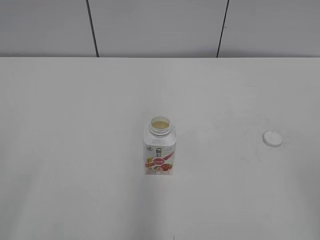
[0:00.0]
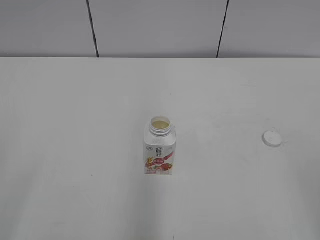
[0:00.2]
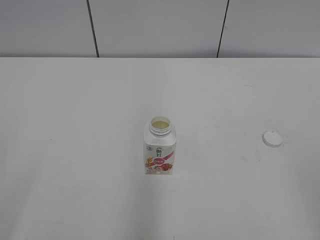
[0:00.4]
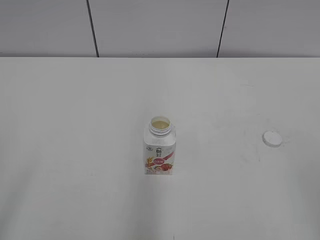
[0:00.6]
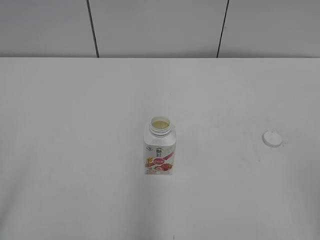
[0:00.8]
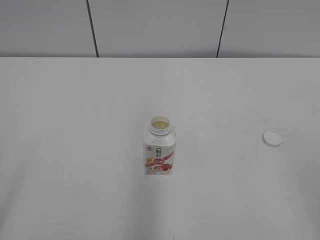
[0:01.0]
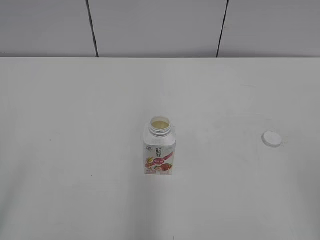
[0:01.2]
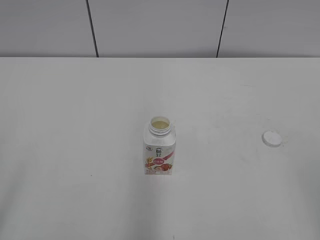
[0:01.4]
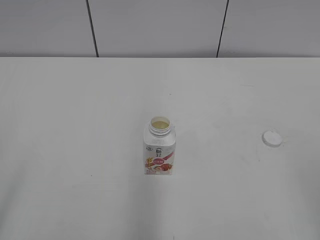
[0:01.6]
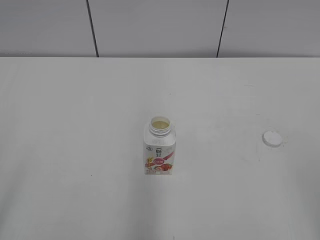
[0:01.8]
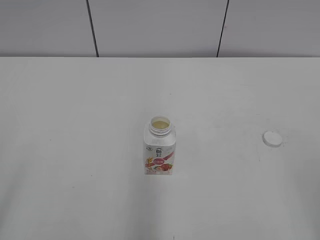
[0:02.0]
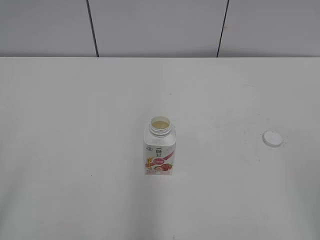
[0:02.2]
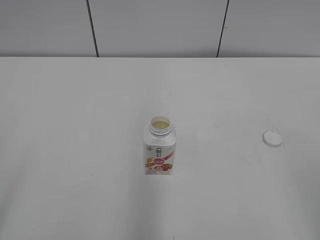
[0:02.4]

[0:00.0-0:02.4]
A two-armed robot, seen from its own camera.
0:01.2 to 0:02.4: Neither gripper changes place.

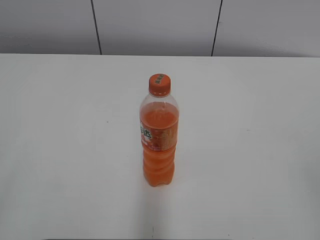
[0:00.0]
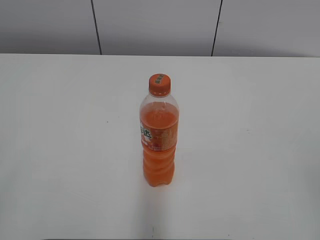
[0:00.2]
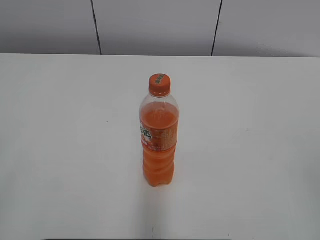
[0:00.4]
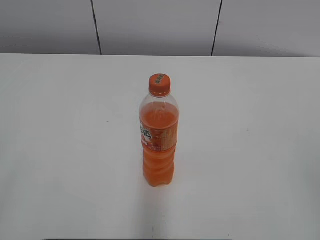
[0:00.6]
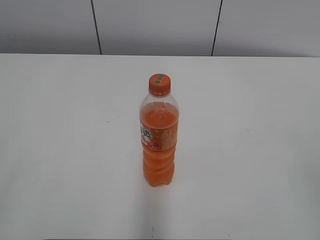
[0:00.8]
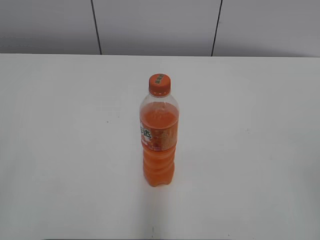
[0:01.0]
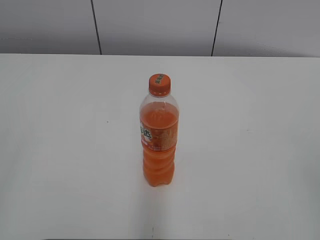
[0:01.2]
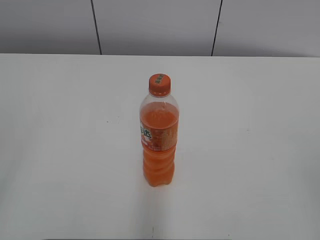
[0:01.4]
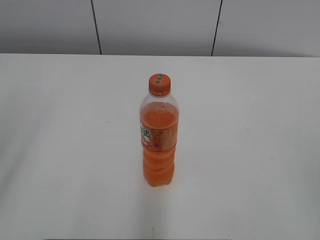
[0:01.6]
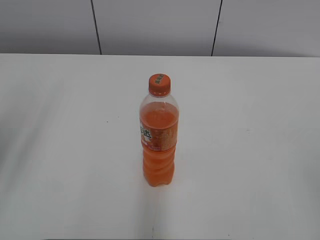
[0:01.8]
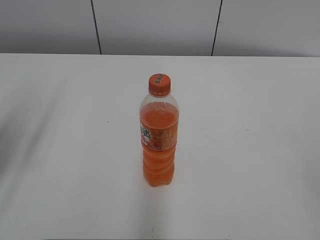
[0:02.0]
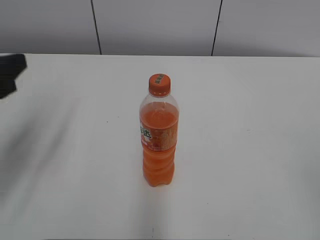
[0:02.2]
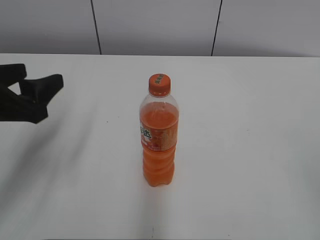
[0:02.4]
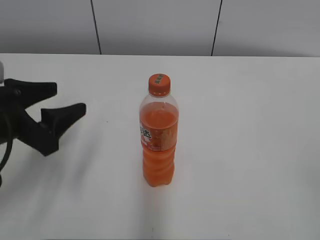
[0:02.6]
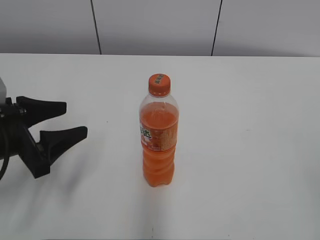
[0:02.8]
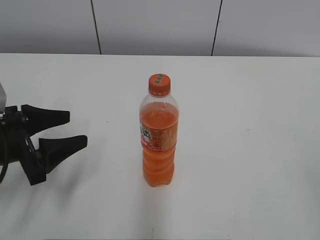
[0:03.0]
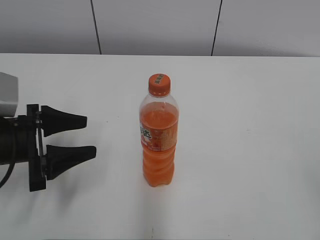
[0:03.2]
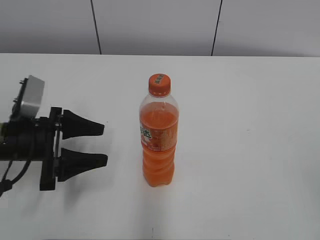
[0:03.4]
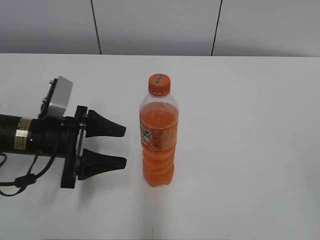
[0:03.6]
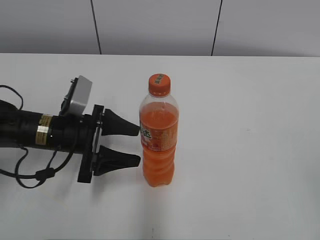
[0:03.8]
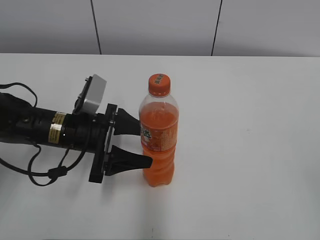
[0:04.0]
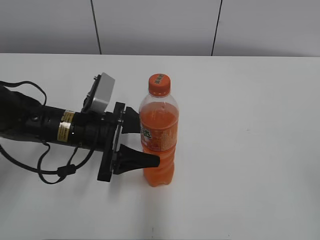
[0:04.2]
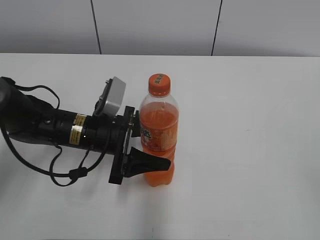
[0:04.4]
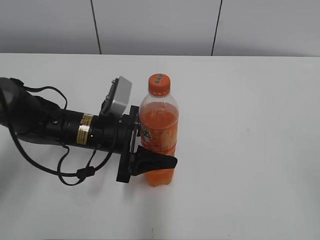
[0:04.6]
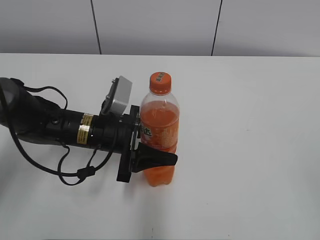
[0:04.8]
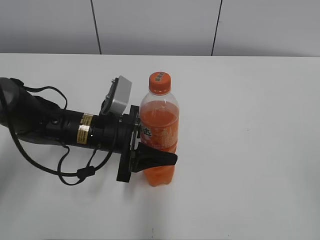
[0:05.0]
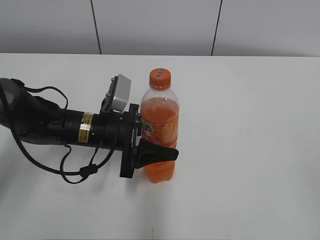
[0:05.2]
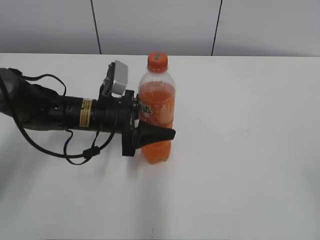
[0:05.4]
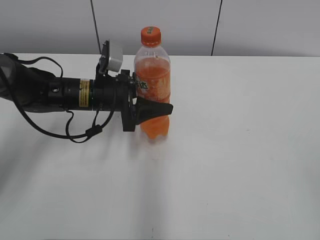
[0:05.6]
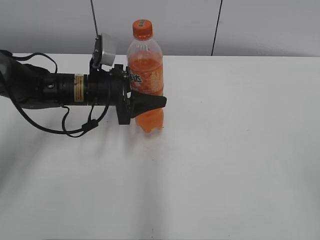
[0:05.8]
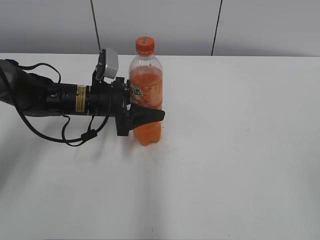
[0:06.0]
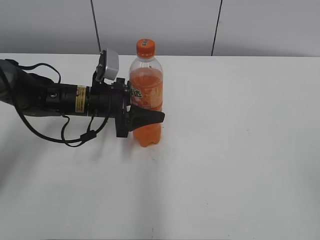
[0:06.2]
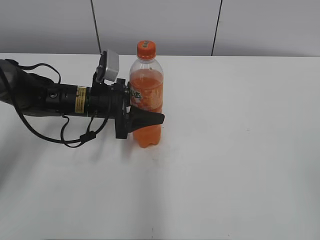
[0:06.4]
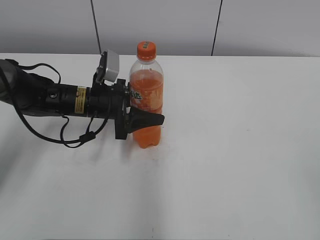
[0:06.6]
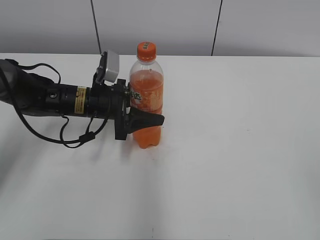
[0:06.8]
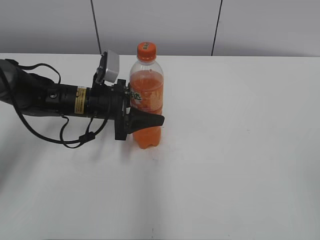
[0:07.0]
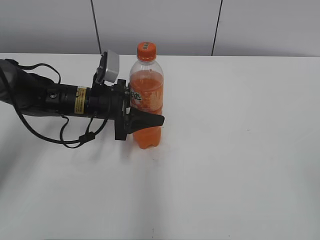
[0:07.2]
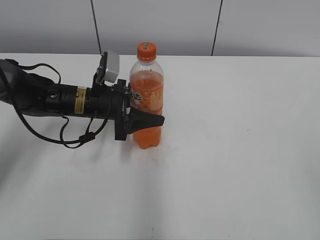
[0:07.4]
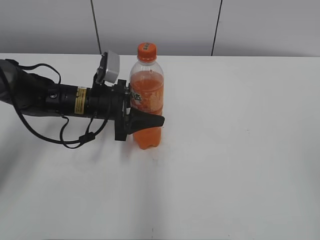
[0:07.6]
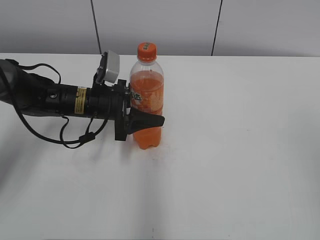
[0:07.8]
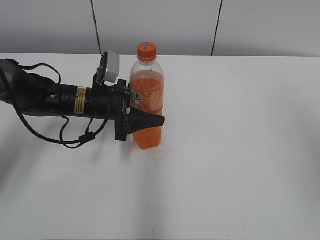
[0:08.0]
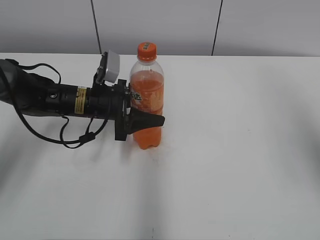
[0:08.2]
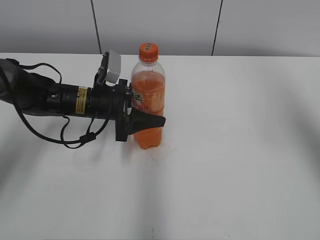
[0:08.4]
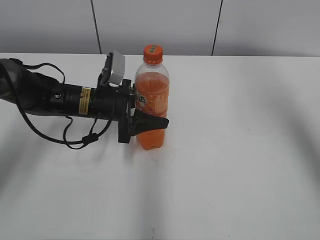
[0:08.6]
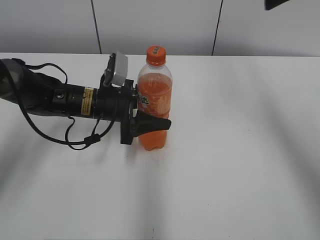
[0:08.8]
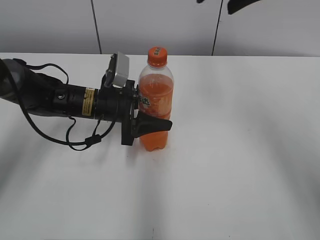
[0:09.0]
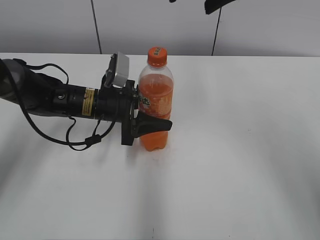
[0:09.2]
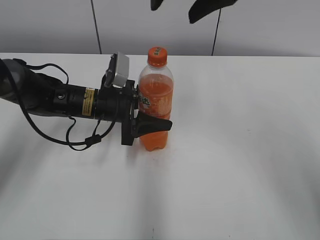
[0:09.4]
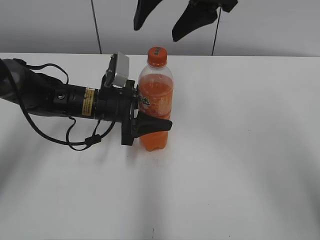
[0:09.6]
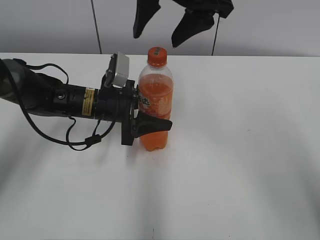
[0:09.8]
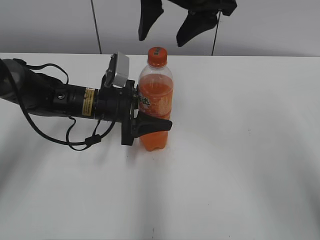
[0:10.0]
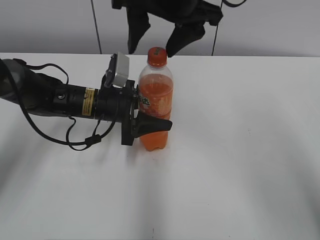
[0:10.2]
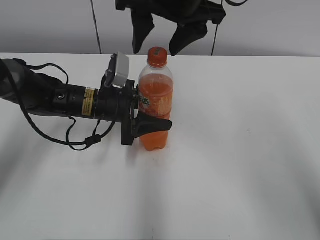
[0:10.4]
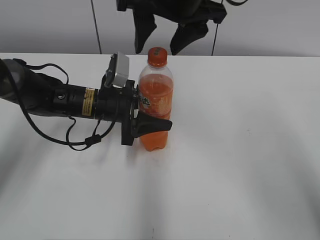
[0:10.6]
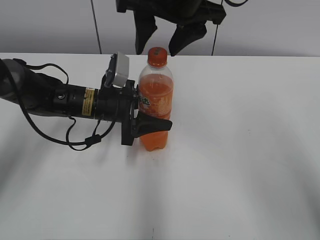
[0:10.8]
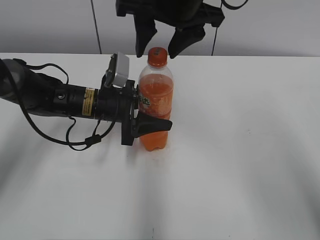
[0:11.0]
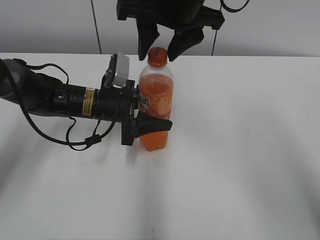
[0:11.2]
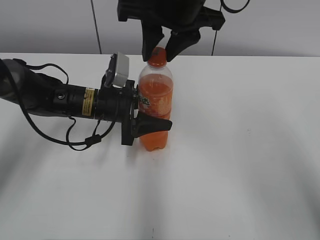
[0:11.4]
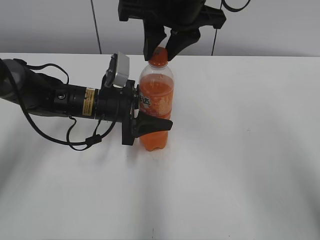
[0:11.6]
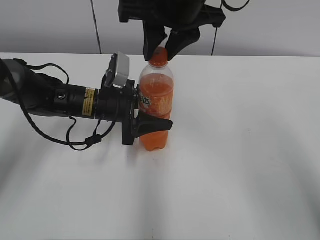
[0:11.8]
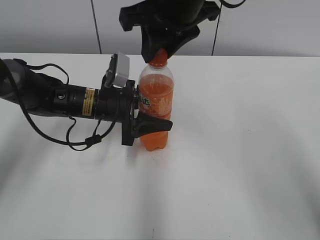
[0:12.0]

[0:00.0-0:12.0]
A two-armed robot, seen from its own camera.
Step, 0:00.0 to 0:04.8: Grasp the bottle and move it to the center of the table with the left gripper.
Step, 0:05.0 to 0:07.2: Lift the bottle and move it to the center of the table with the left gripper.
0:01.6 to 0:03.0: The left gripper moves downward and forward, roughly 25 cm.
0:03.0 to 0:04.4: The left gripper shifts about 15 cm to the right and forward.
0:04.4 to 0:06.0: The left gripper goes some 10 cm forward, and closes.
0:06.0 to 0:07.6: The grippers make only small movements.
0:07.6 to 0:09.0: The right gripper shifts approximately 40 cm forward and to the left.
0:09.0 to 0:10.4: The right gripper is displaced to the left by approximately 10 cm.
0:10.4 to 0:12.0: The right gripper closes.

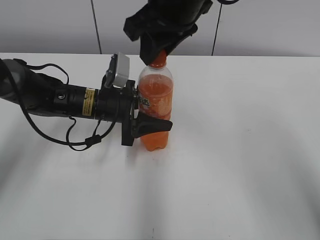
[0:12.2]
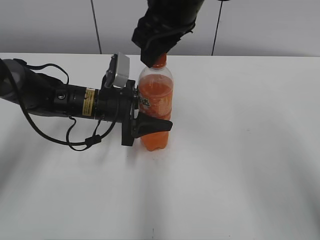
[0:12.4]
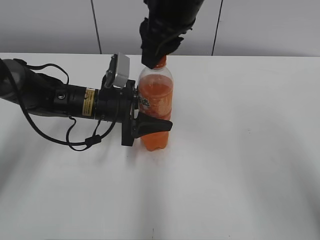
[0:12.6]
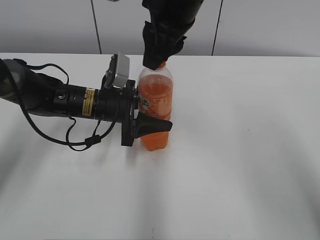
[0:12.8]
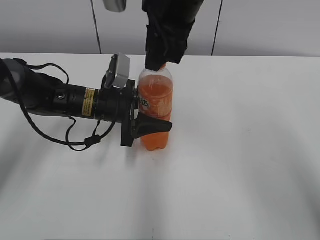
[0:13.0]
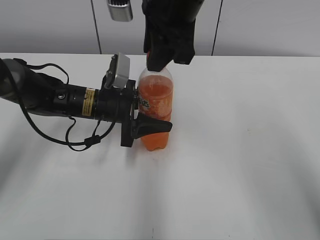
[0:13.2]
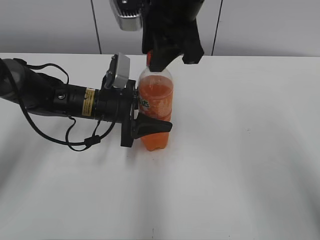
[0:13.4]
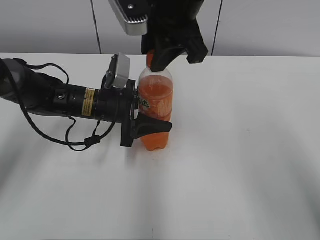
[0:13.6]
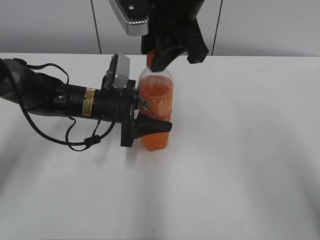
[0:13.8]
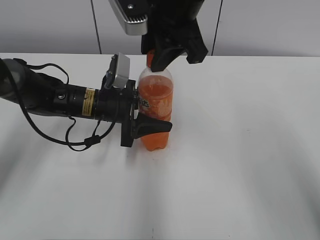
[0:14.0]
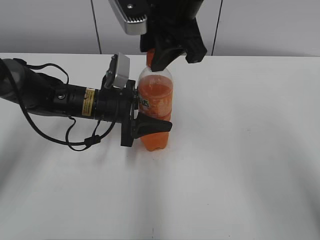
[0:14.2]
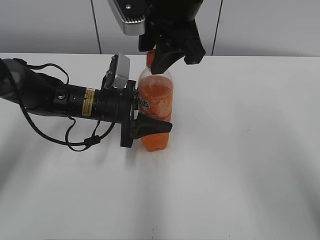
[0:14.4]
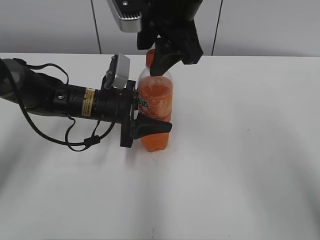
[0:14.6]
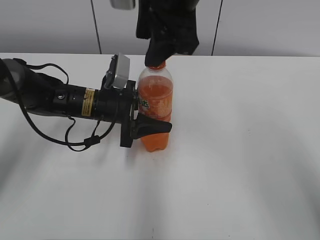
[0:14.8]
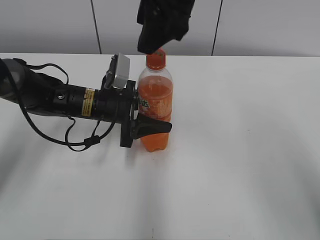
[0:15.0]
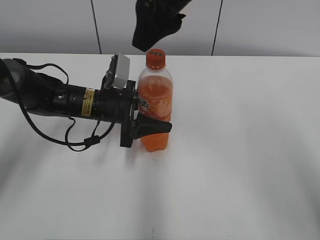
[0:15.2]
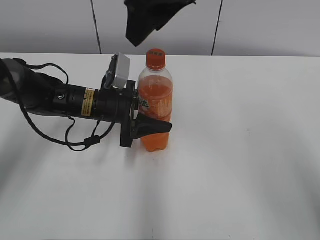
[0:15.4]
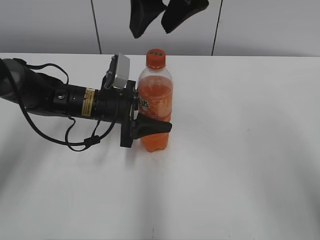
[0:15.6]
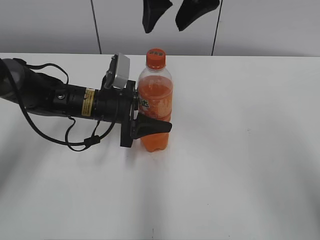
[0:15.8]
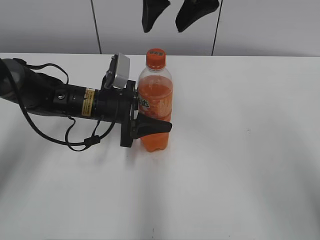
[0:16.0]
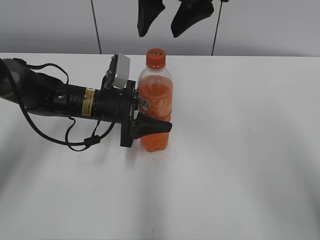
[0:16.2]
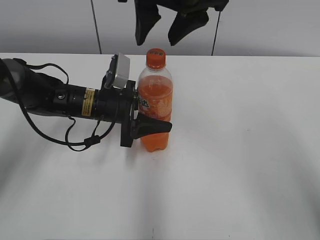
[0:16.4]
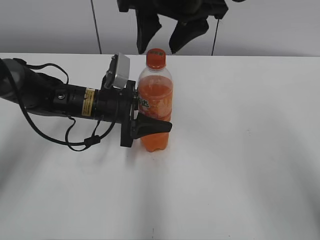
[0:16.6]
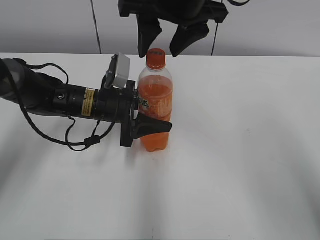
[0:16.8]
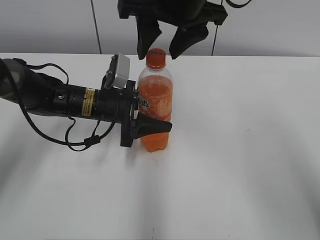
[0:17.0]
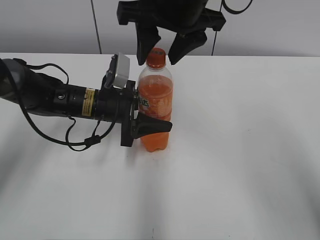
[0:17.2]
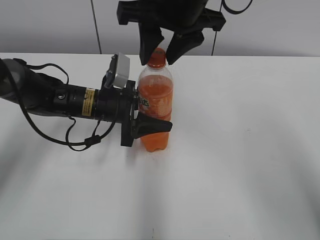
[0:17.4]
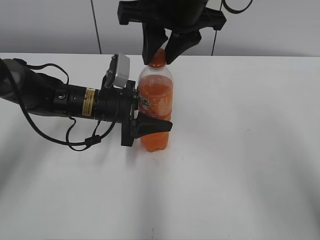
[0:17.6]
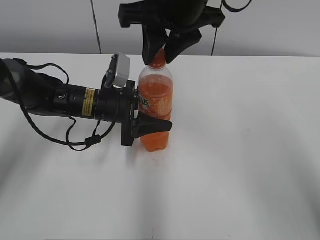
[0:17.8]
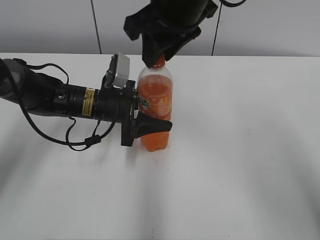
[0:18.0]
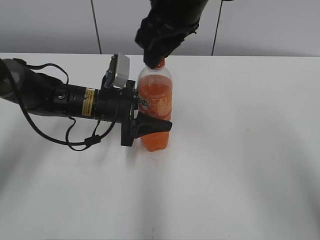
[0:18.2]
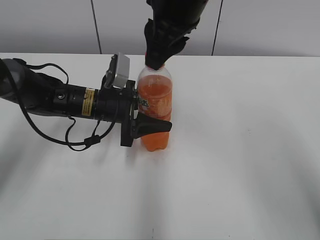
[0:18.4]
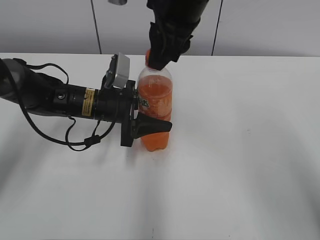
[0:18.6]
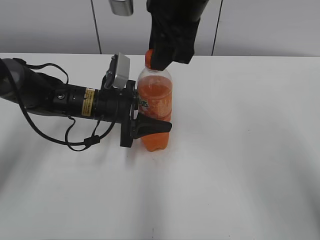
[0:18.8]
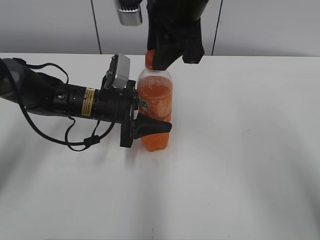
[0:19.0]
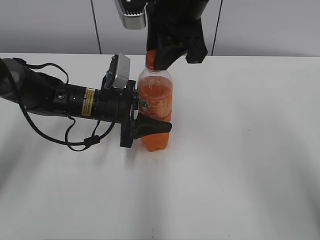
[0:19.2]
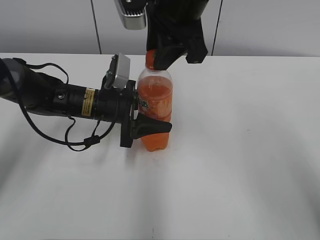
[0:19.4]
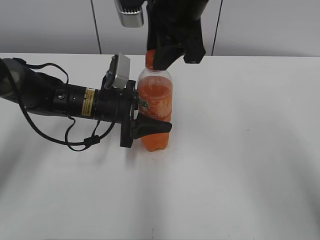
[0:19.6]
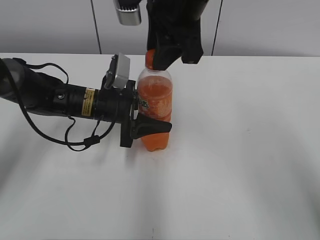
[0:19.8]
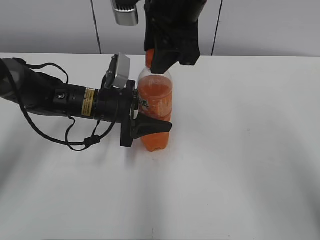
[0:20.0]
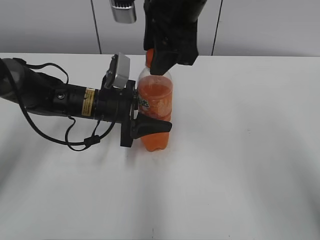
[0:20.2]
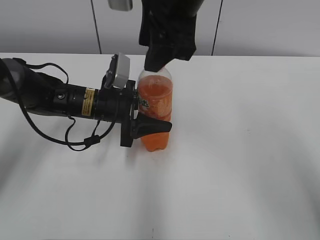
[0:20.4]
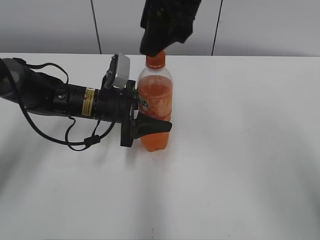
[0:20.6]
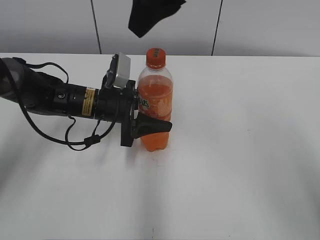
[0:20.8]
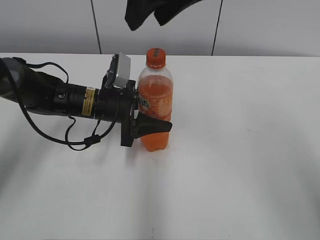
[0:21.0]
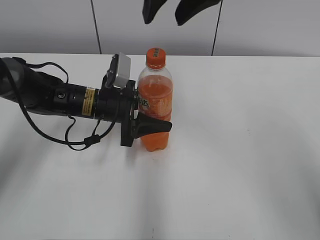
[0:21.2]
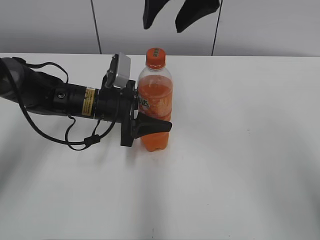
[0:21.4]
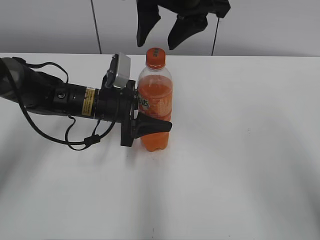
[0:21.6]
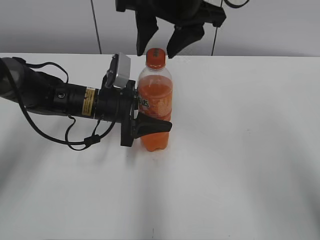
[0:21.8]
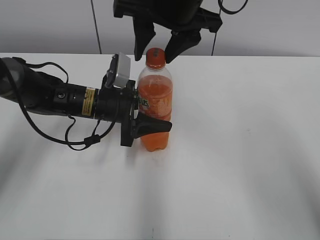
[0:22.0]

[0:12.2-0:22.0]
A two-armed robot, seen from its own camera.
0:13.6 to 0:15.0: The right gripper opens up.
0:16.4 to 0:17.8: The right gripper closes its fingers.
0:19.2 to 0:20.6: The right gripper opens up.
